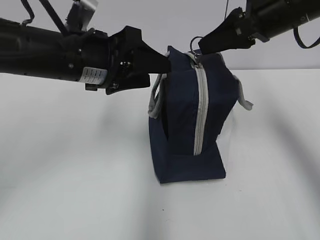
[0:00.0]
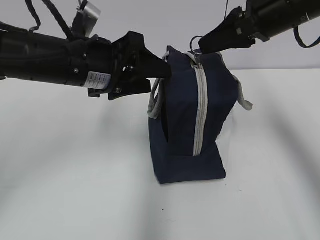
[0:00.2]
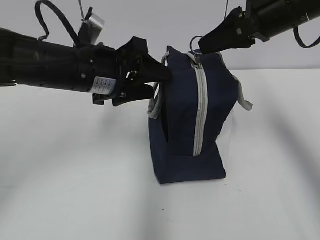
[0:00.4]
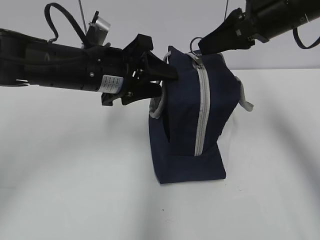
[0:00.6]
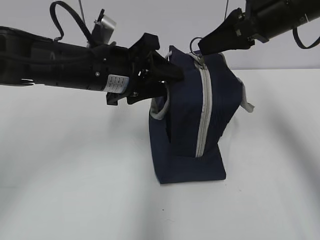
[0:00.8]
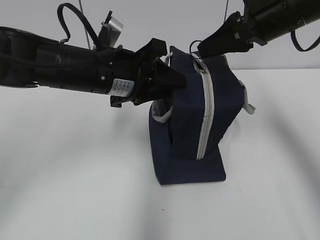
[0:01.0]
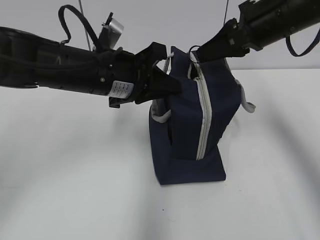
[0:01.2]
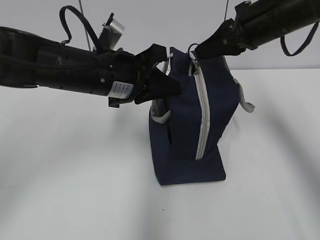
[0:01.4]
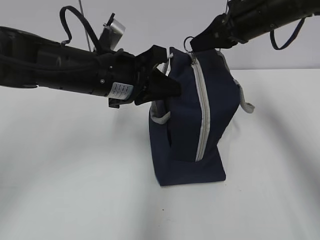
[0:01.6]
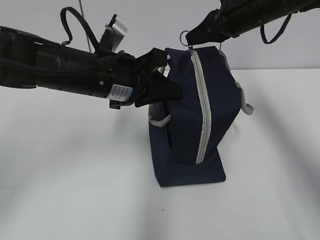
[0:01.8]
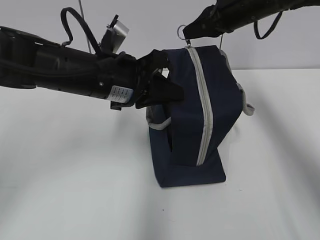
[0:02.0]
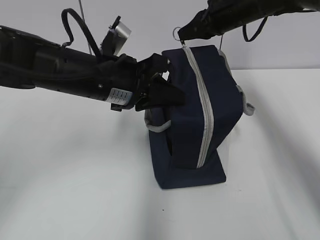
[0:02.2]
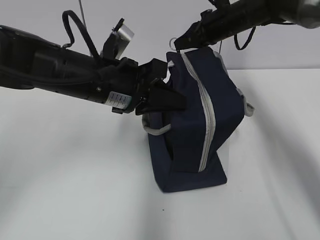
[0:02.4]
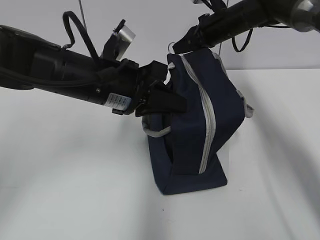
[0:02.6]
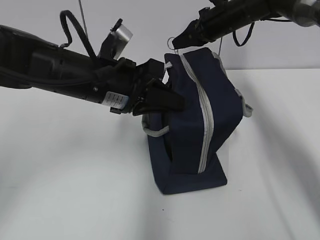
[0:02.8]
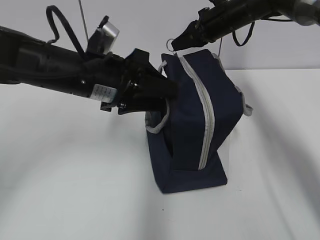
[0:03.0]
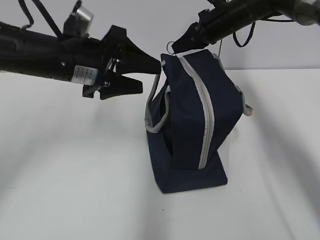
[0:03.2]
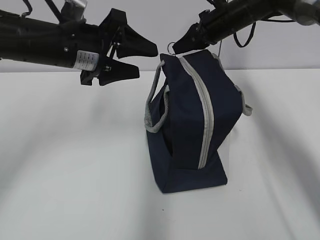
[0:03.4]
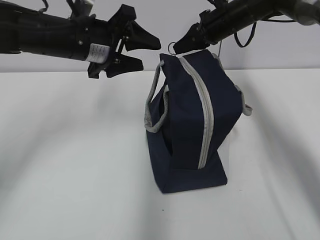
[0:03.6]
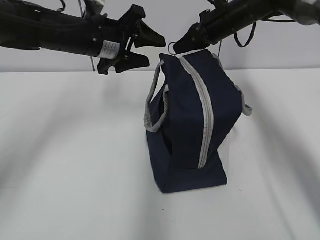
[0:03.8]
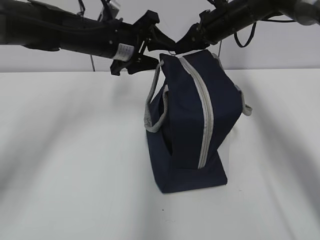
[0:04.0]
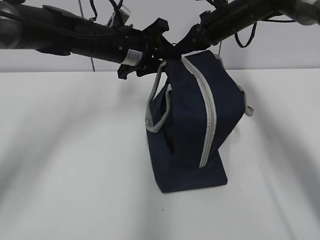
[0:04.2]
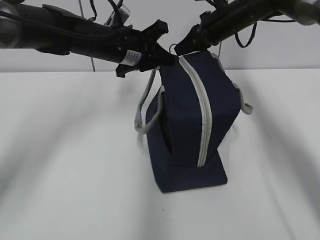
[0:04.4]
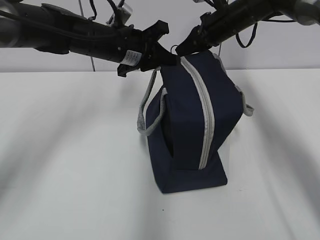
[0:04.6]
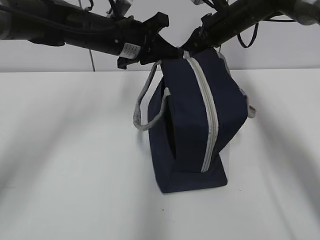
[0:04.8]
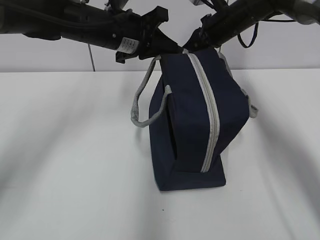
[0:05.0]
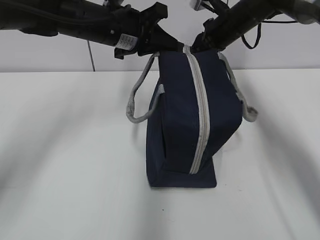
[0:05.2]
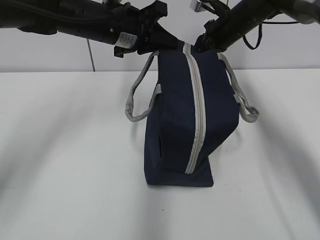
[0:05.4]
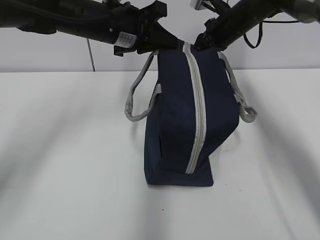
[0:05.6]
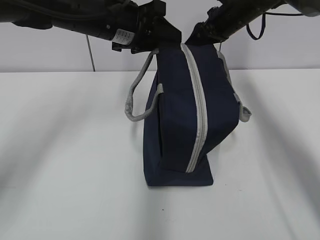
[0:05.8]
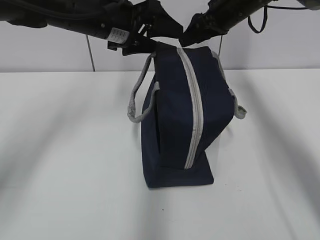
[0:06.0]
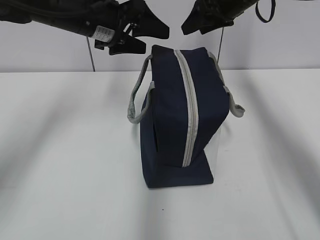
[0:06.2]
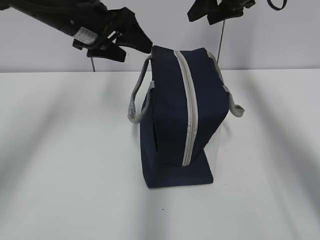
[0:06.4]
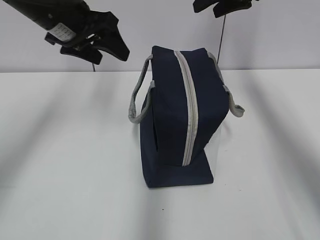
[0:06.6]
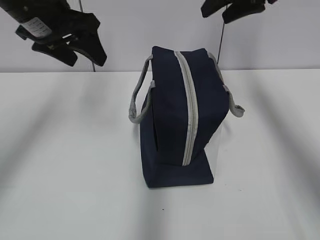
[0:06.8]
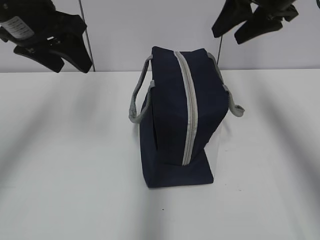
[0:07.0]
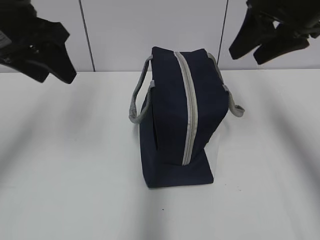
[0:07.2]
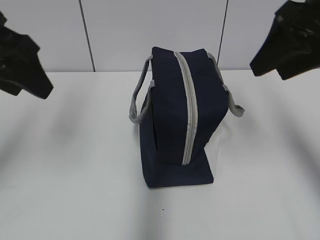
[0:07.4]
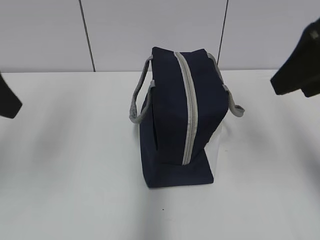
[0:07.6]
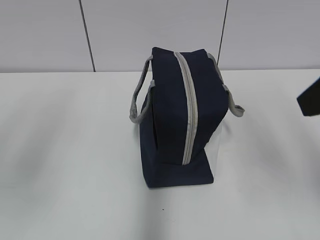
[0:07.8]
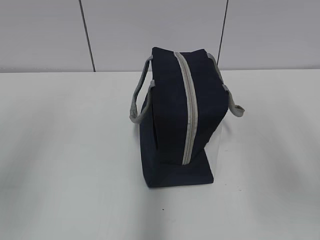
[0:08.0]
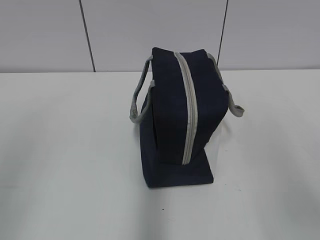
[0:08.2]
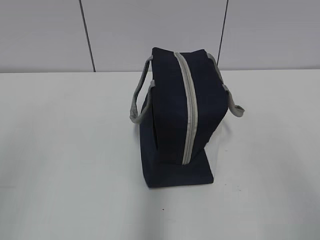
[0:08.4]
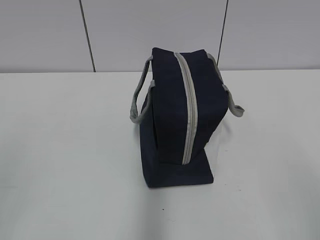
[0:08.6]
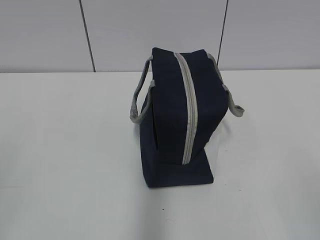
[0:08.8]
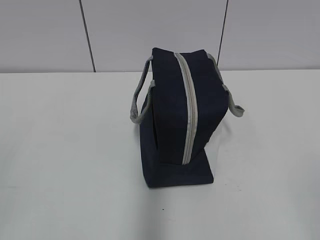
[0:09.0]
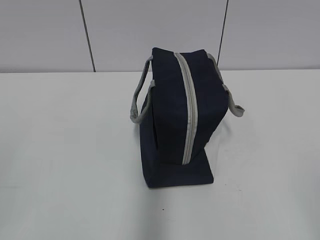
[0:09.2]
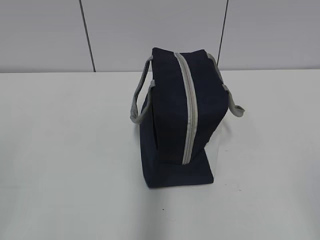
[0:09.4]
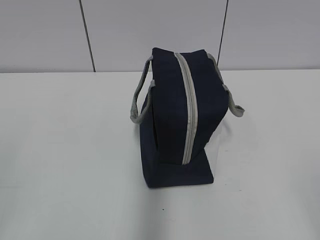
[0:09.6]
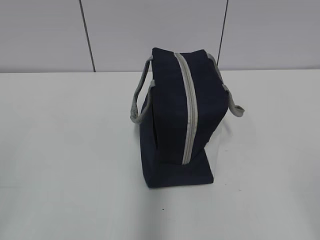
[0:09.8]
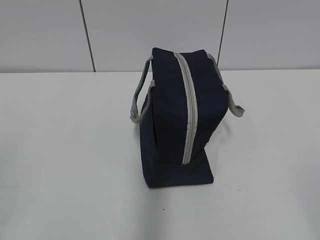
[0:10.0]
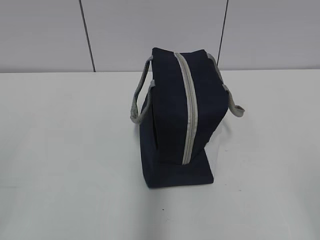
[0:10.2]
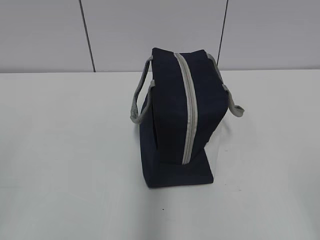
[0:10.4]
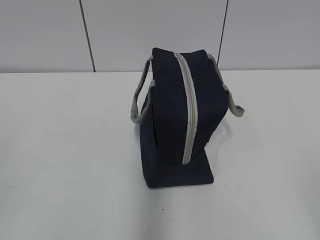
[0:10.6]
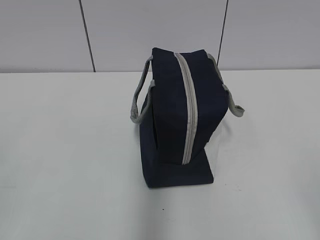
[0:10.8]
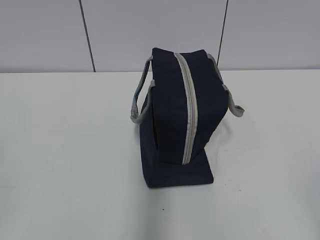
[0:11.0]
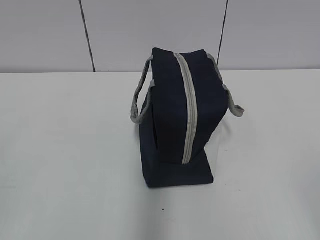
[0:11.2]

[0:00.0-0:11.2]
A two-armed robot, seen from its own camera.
0:00.0 to 0:01.6: The right gripper goes about 5 cm forward. The left gripper closes up.
0:01.6 to 0:03.2: The left gripper moves some 5 cm, and opens; the right gripper travels forward and downward by approximately 15 cm.
0:03.2 to 0:04.8: The left gripper goes roughly 10 cm forward, and closes its fingers.
0:04.8 to 0:06.4: The left gripper goes approximately 5 cm to the left, and opens its fingers; the right gripper moves upward, approximately 10 cm, and opens.
0:06.4 to 0:08.0: The left gripper shifts roughly 30 cm backward and to the left. The right gripper moves backward, some 35 cm.
0:08.0 to 0:09.6: The right gripper moves backward and downward, roughly 15 cm.
